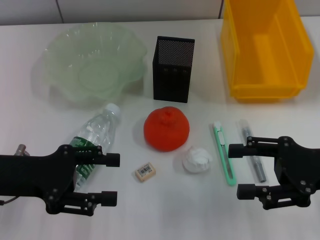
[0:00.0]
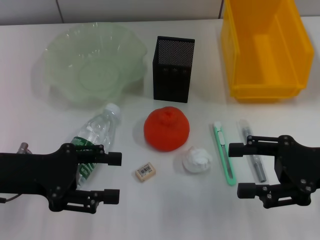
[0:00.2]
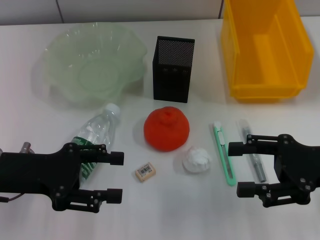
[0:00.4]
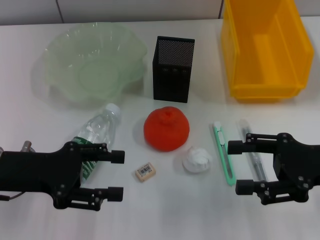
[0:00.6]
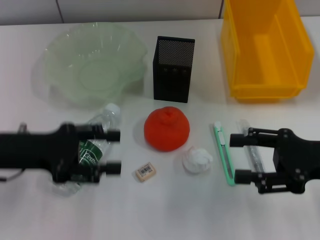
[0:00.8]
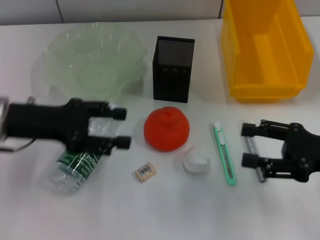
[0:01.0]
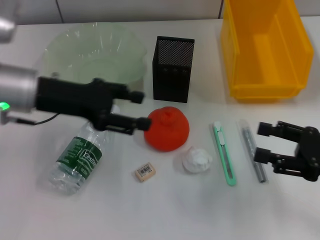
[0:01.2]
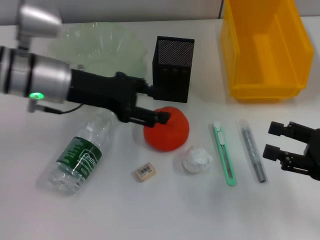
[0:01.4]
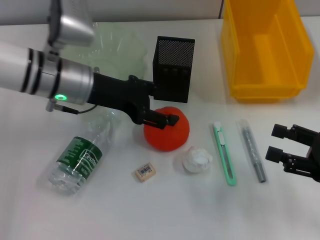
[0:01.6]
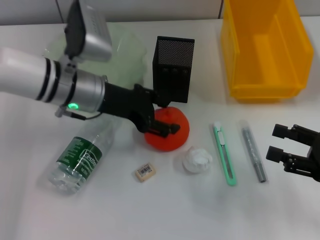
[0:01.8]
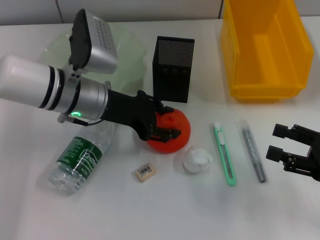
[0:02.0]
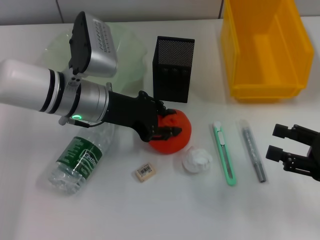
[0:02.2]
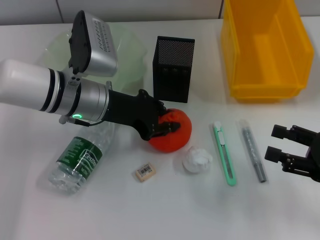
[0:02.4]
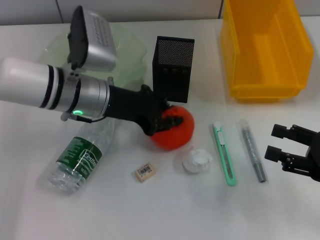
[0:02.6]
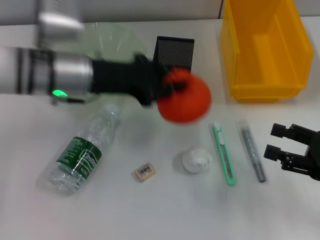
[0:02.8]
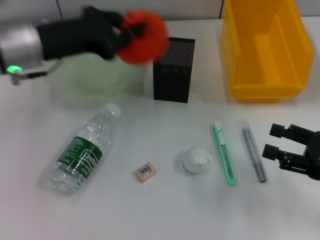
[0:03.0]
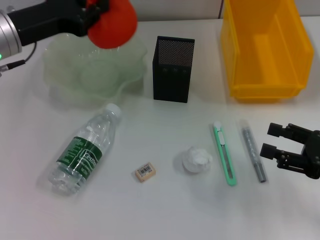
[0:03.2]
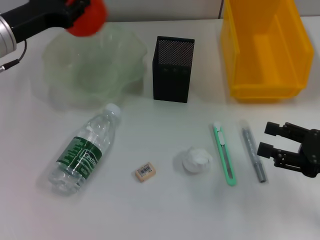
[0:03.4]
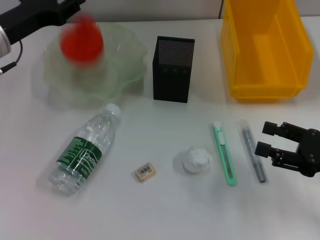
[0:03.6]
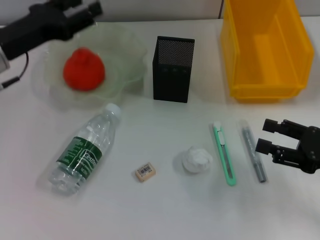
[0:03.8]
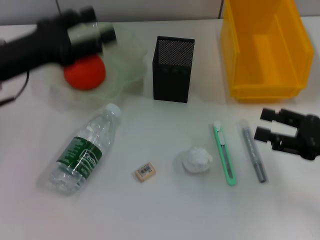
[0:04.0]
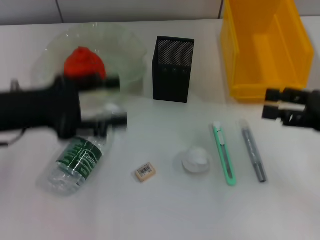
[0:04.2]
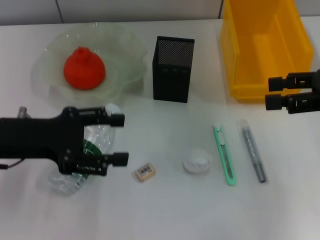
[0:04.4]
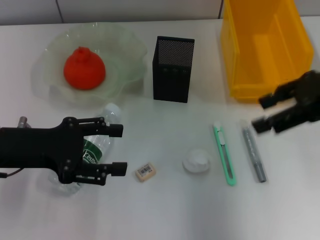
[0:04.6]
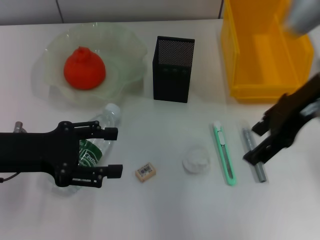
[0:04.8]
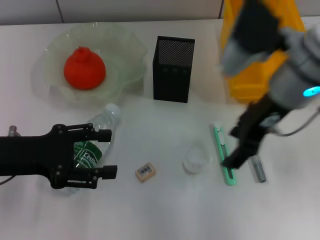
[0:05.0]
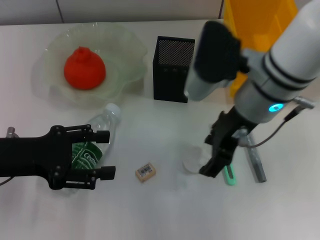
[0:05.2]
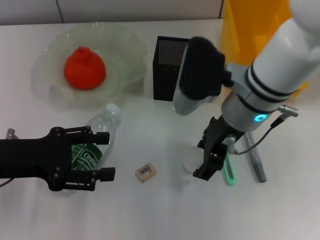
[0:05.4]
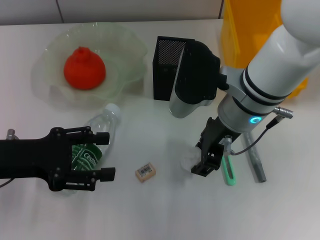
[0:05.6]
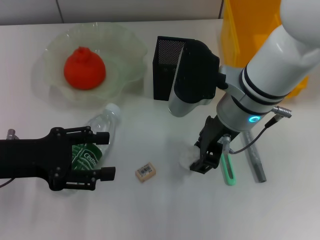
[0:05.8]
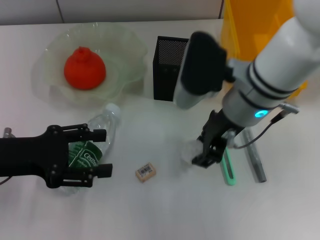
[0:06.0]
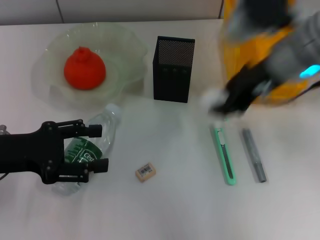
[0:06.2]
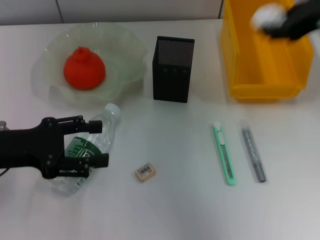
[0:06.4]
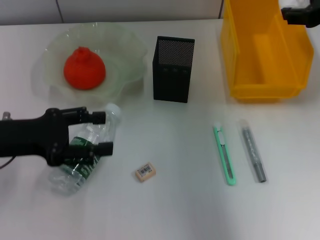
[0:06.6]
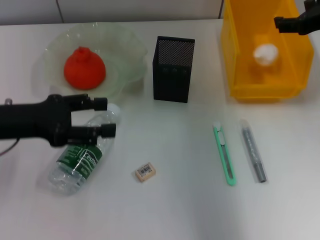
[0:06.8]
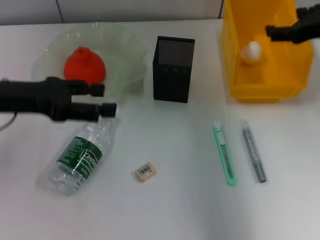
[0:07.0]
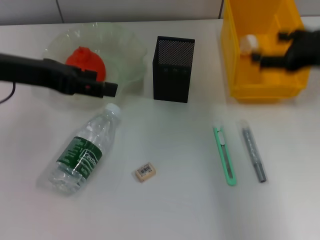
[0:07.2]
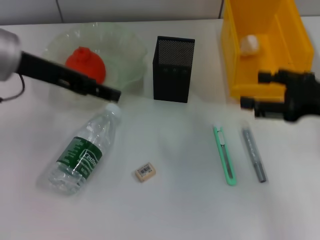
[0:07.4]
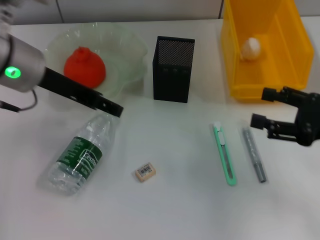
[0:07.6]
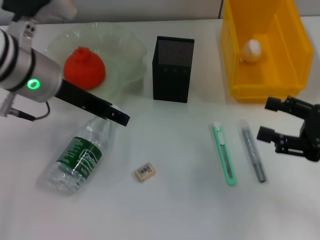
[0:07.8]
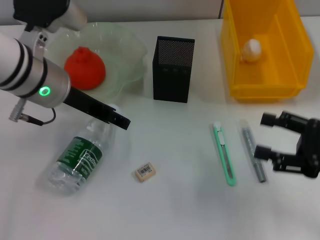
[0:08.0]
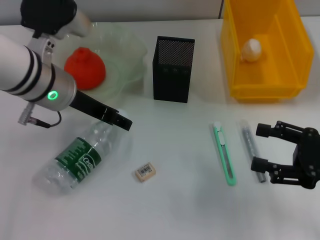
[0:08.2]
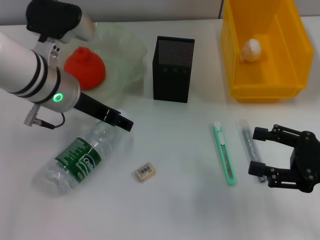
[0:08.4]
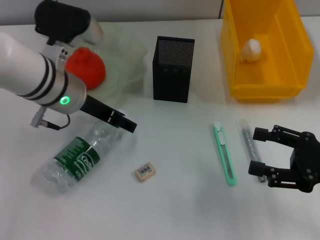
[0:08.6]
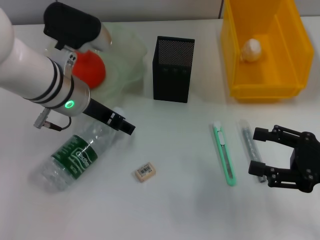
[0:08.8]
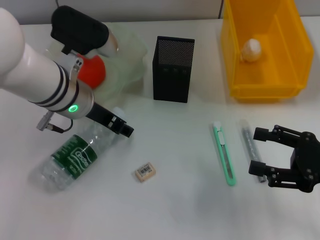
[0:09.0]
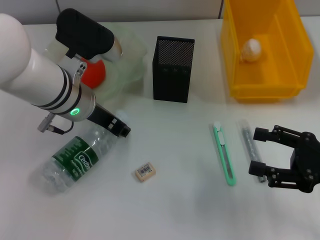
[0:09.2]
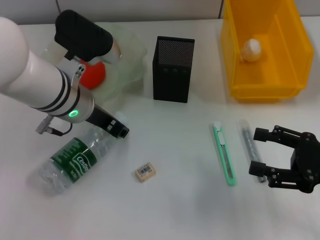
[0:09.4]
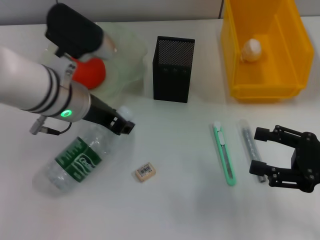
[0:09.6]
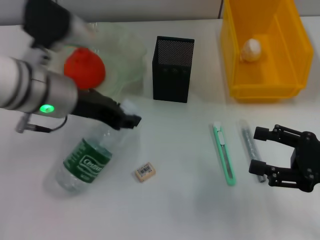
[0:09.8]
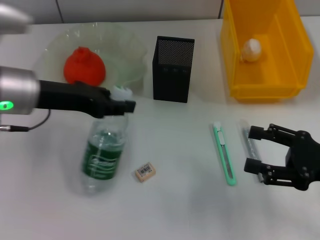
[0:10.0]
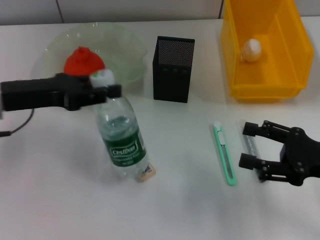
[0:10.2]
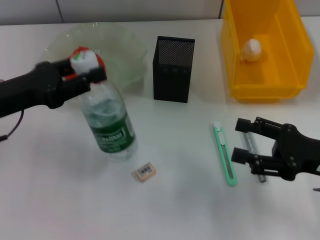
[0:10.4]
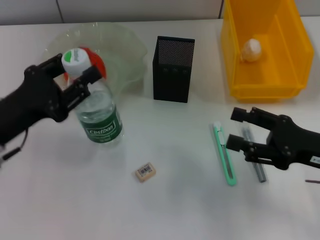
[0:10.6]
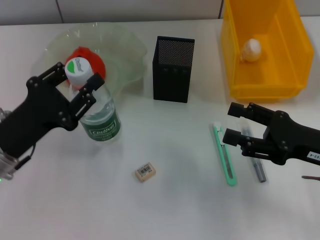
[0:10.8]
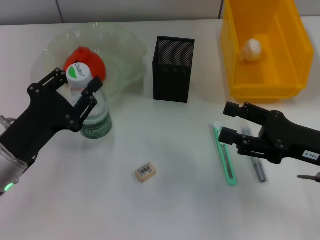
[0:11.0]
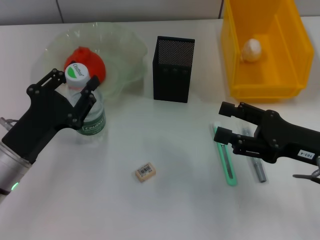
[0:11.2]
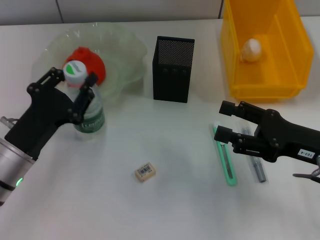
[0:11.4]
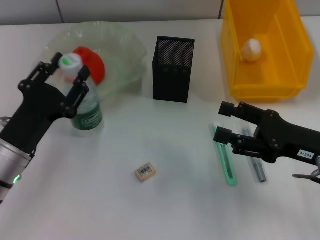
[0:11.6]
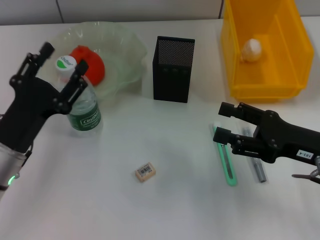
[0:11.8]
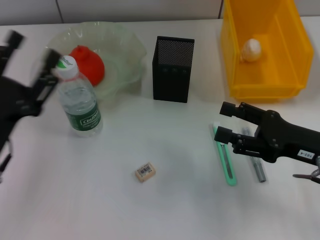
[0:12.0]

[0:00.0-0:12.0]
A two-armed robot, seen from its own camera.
Step, 0:00.0 to 0:02.2: Grab the orange with the left hand.
Step, 0:02.6 to 0:03.8: Place the orange into the fruit bowl with the left hand.
Step, 0:04.0 to 0:05.8: Grab the paper ball with the right hand.
Step, 0:06.0 to 0:06.8: Place the paper ball into the trash can with the right hand.
Step, 0:07.2 to 0:09.2: Grab the water bottle with the left hand.
Step, 0:09.4 to 0:11.4: Place the water bottle on the table with the left hand.
0:00.0 to 0:01.6: The left gripper goes roughly 15 cm forward and to the right. The right gripper heads to the right, covering about 5 cm.
0:01.6 to 0:03.0: The left gripper moves to the left, some 5 cm, and closes its fingers.
0:03.0 to 0:04.4: The left gripper heads backward, covering approximately 10 cm, and opens. The right gripper heads upward and forward, covering some 15 cm.
0:04.4 to 0:06.0: The right gripper is displaced to the left by about 20 cm, and closes.
0:06.0 to 0:07.6: The left gripper shifts about 15 cm to the right, upward and forward. The right gripper goes some 20 cm to the right, and opens up.
0:07.6 to 0:09.0: The left gripper moves downward and to the right, some 10 cm.
0:09.0 to 0:10.4: The left gripper is displaced to the left and backward by about 15 cm, and closes.
0:10.4 to 0:12.0: The left gripper shifts some 10 cm backward and downward, and opens.

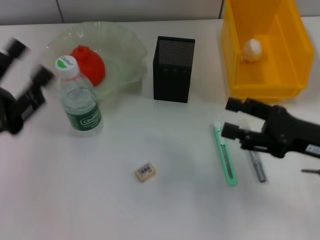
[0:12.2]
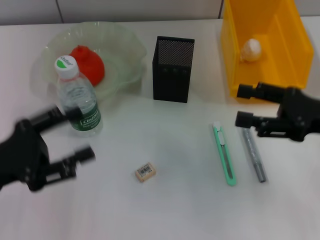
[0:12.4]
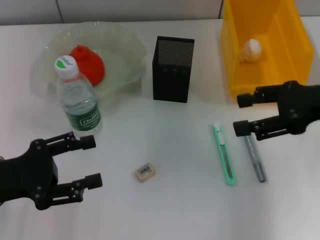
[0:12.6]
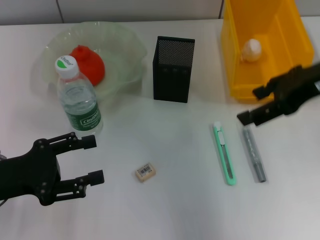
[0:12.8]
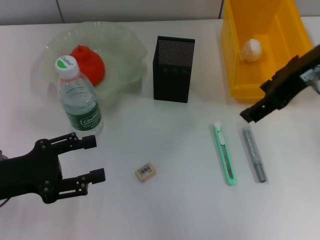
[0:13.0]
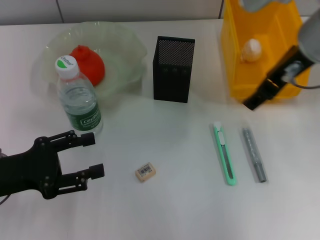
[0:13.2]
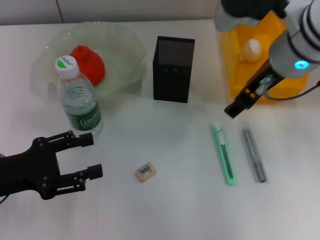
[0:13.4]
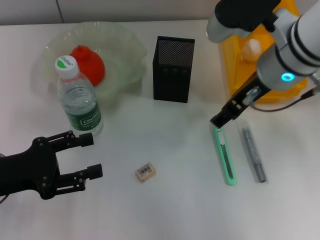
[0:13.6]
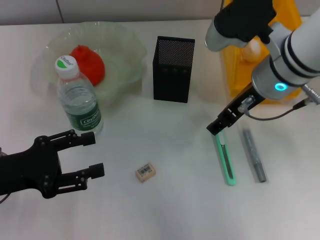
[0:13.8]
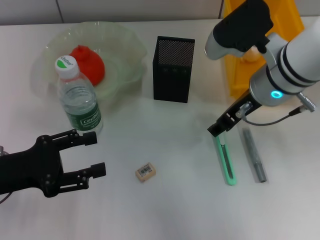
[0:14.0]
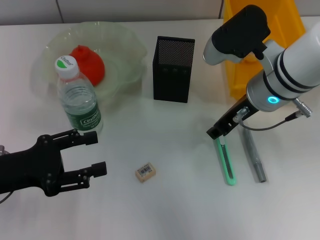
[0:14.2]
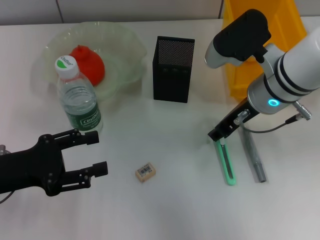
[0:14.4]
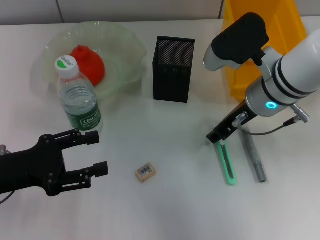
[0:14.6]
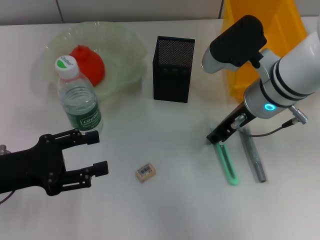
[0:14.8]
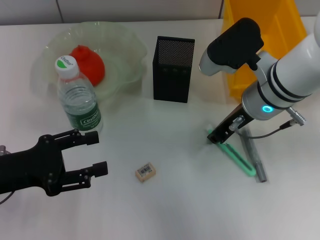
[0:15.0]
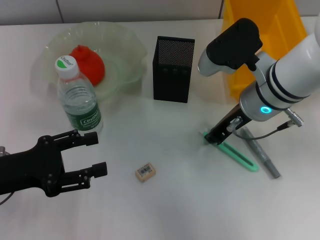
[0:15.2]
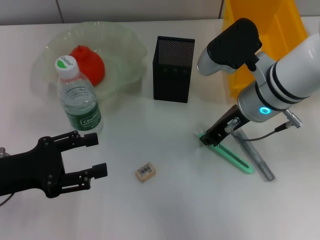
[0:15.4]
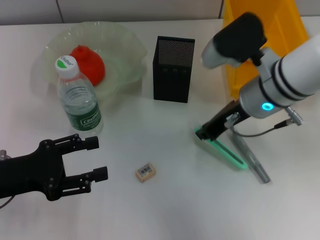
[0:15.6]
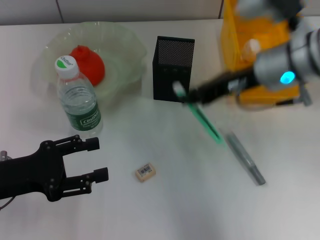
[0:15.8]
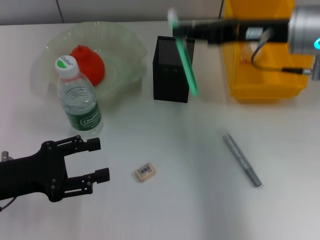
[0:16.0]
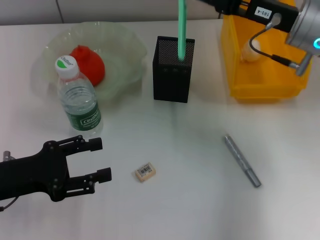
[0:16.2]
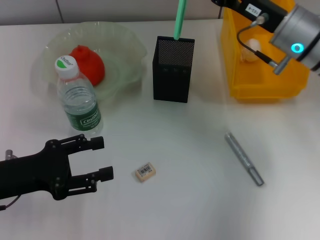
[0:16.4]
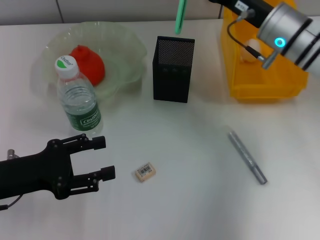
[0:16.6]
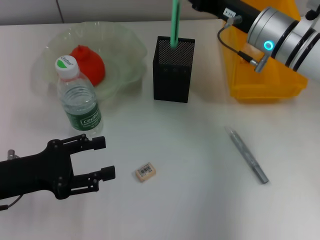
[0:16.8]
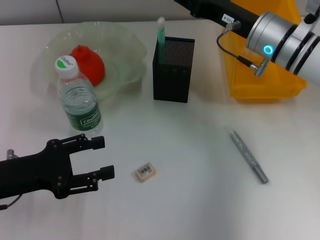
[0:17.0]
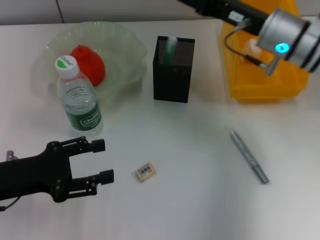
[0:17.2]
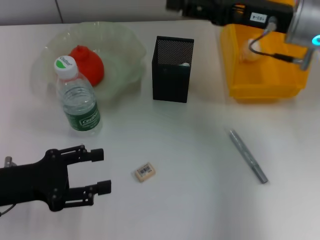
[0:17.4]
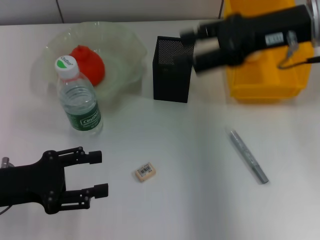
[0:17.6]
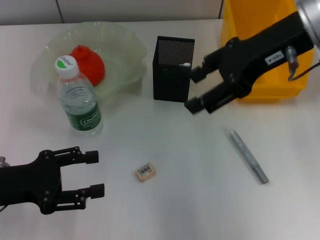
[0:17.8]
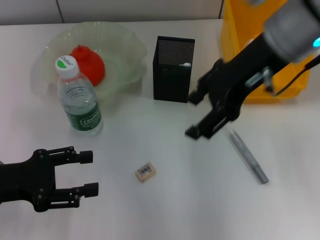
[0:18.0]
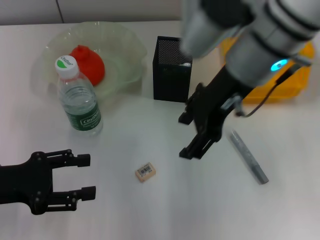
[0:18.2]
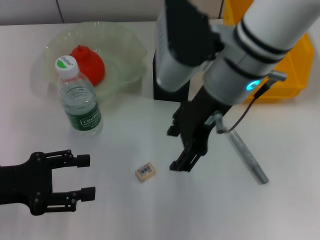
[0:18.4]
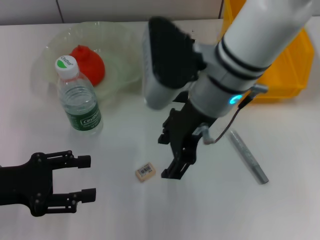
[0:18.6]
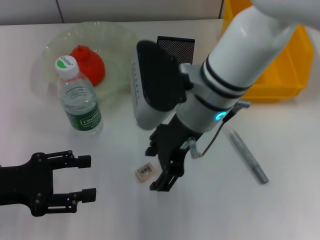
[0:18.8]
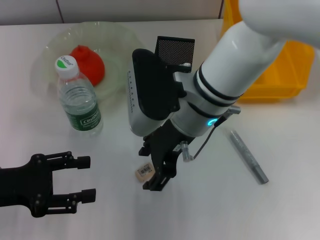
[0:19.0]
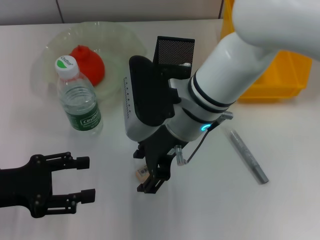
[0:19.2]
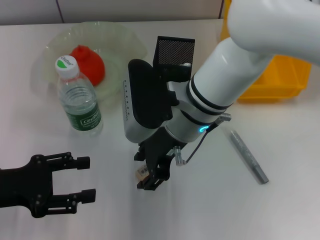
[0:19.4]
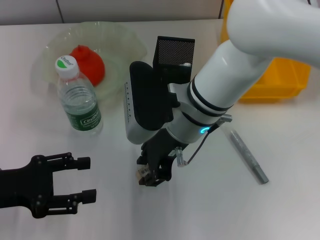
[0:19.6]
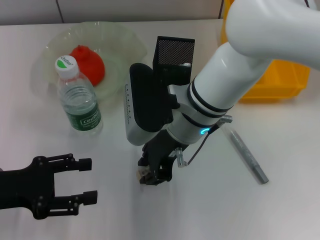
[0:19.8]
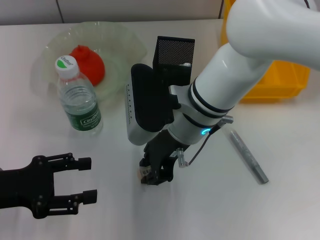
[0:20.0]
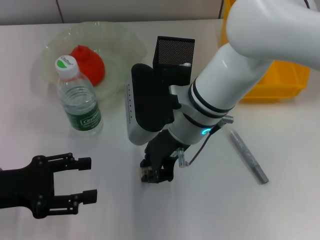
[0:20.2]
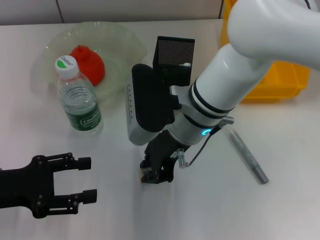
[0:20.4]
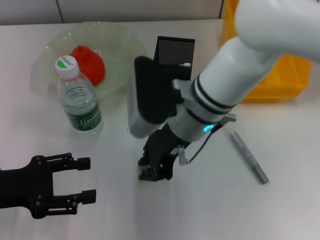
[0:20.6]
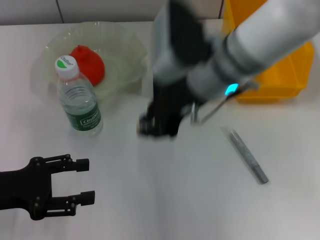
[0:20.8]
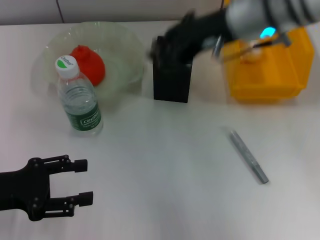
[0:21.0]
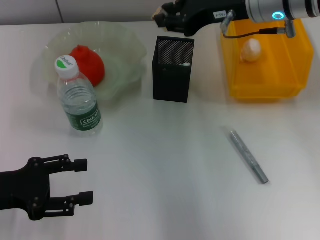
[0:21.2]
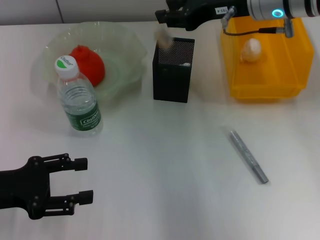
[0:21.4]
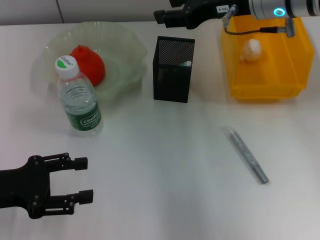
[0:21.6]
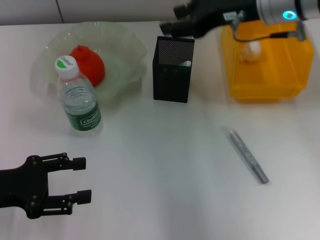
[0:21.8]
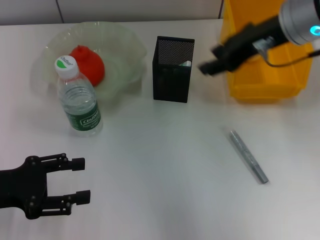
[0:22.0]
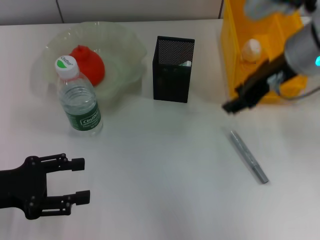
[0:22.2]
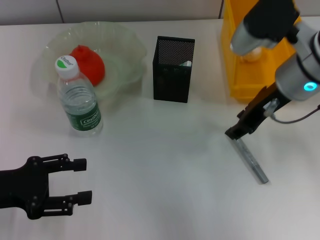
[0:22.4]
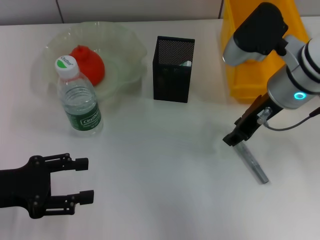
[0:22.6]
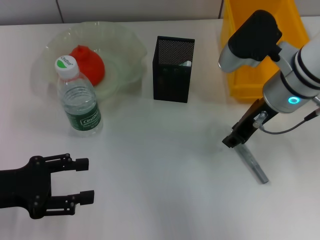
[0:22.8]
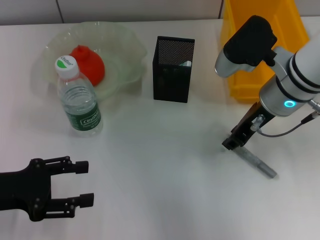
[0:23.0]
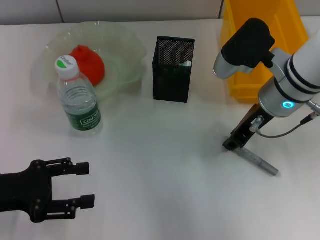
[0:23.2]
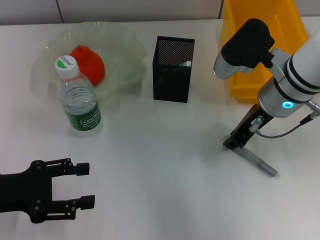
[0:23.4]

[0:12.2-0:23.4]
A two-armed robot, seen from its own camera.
Step, 0:12.2 to 0:15.0: Grab the blue utility knife with the right hand.
Step, 0:15.4 to 0:17.0: Place the blue utility knife into the pen holder with the right hand.
Step, 0:17.2 to 0:20.2: Grab the eraser with the right hand.
Step, 0:20.4 to 0:21.4: Put the eraser into the pen holder with the right hand.
0:12.2 to 0:13.8: The right gripper goes approximately 20 cm to the left, forward and upward.
0:13.8 to 0:15.4: The right gripper closes up.
0:15.4 to 0:17.0: The right gripper heads forward, covering approximately 5 cm, and travels upward and back again, roughly 5 cm each way.
0:17.0 to 0:18.6: The right gripper is displaced to the left, backward and upward by some 15 cm, and opens its fingers.
0:18.6 to 0:20.2: The right gripper heads downward, covering about 5 cm, and closes up.
0:20.2 to 0:21.8: The right gripper moves to the right, upward and forward, approximately 15 cm.
0:21.8 to 0:23.4: The right gripper shifts roughly 10 cm downward.
